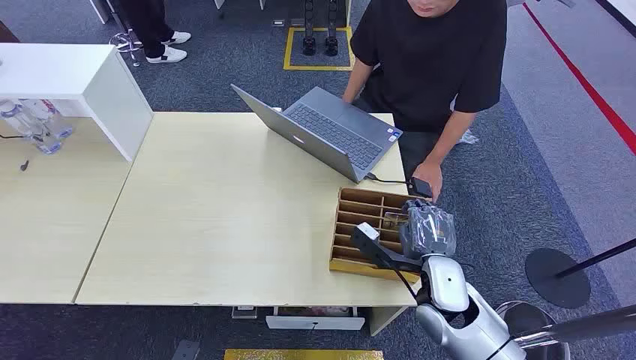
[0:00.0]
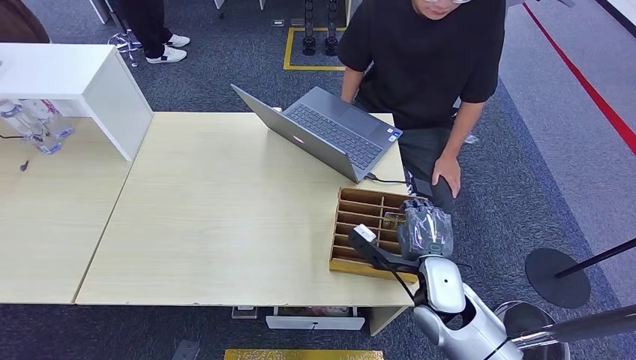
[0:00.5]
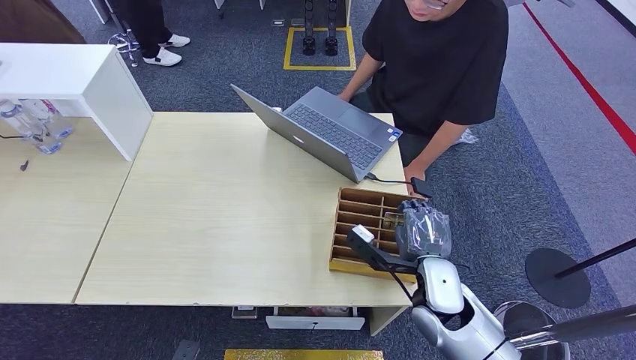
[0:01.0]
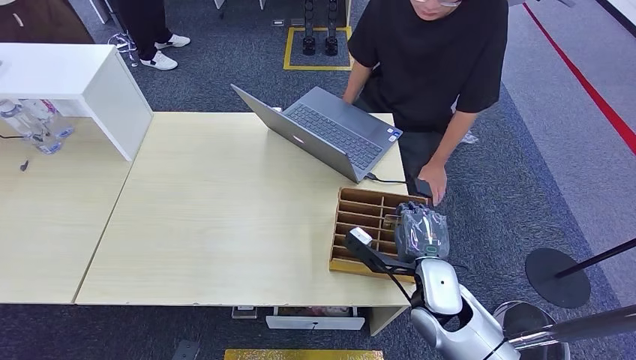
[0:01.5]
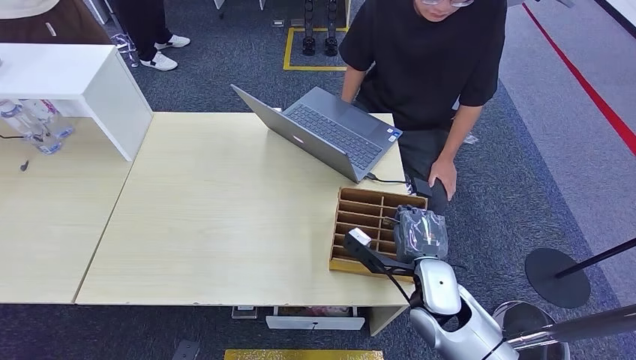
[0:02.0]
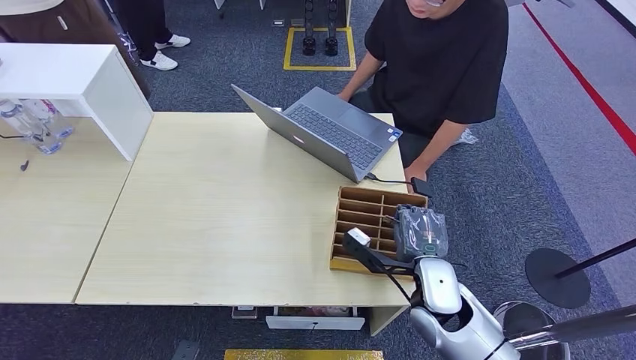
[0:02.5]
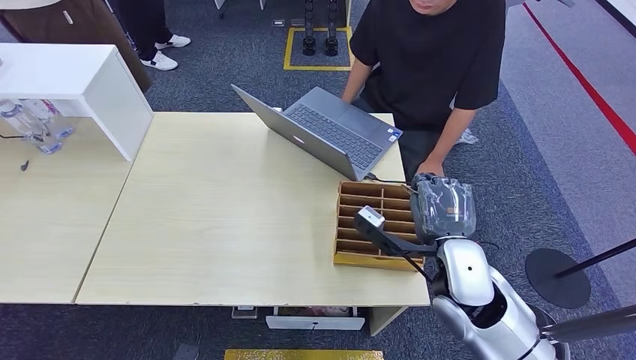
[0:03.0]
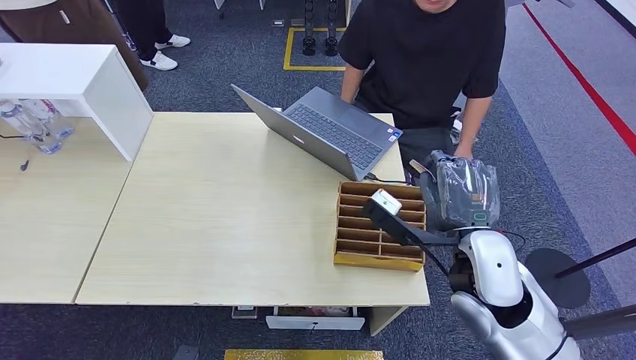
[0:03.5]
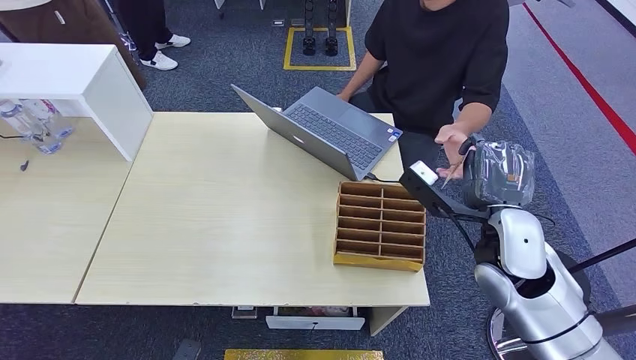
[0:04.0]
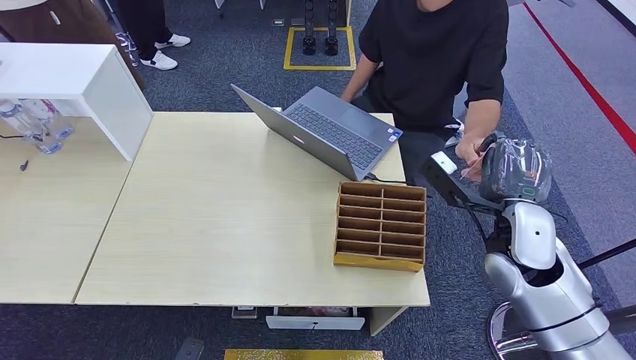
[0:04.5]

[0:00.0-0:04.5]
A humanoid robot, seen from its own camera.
Step, 0:00.0 to 0:03.0: Pick up the key card from the card box.
Step, 0:03.5 to 0:04.5: Hand the key card to the target.
0:02.0 to 0:04.5: The right hand goes roughly 15 cm upward and to the right.
